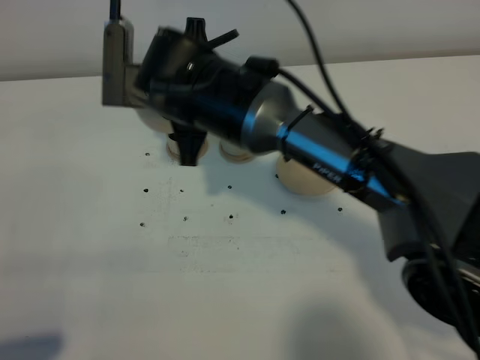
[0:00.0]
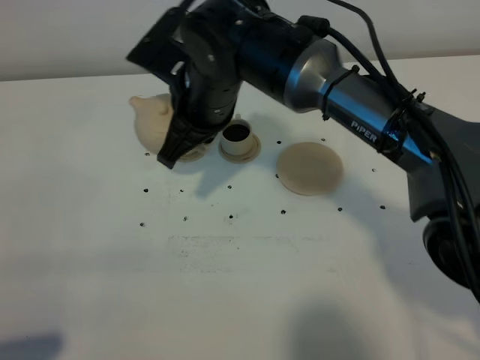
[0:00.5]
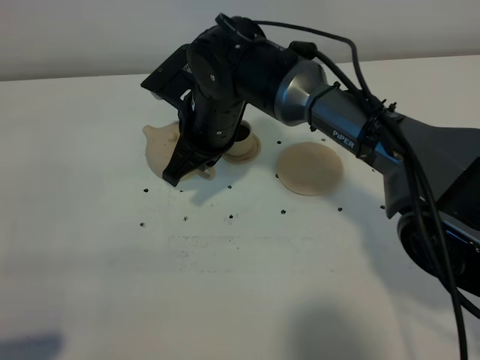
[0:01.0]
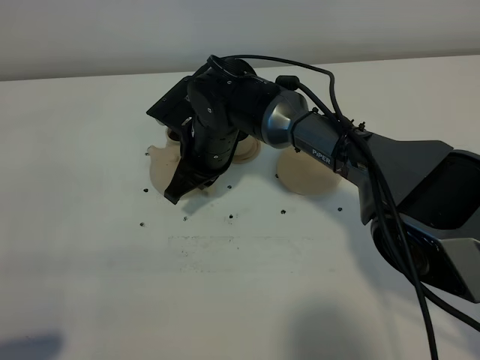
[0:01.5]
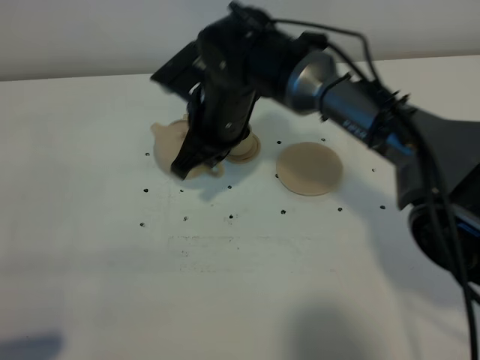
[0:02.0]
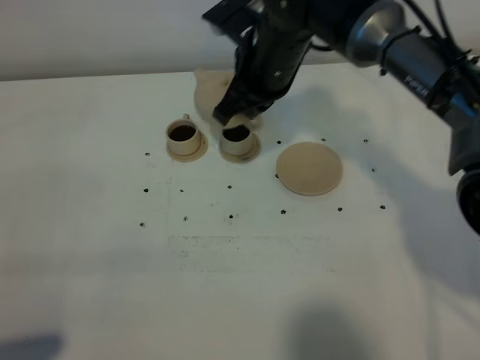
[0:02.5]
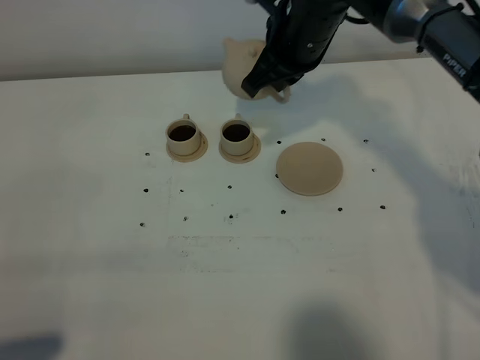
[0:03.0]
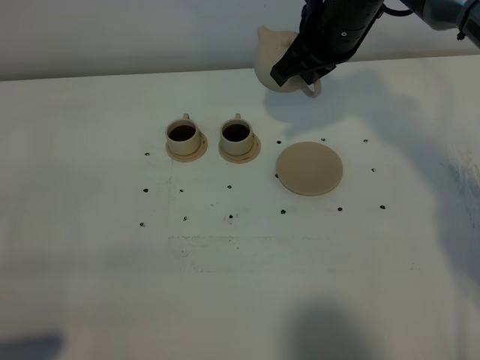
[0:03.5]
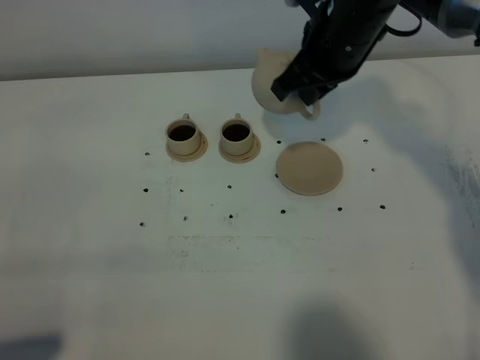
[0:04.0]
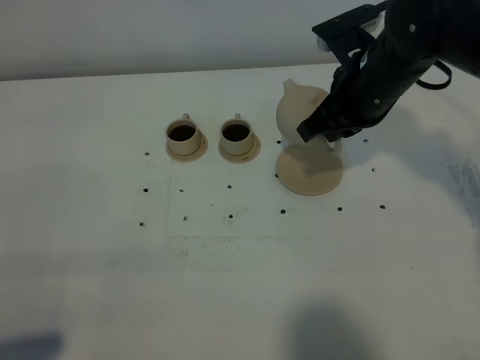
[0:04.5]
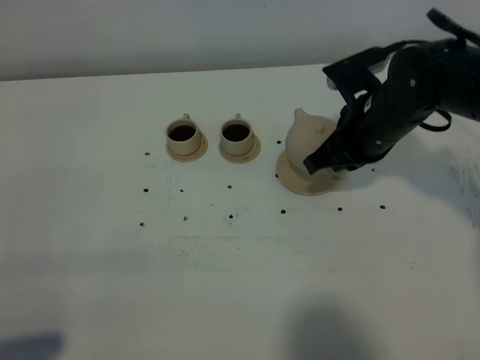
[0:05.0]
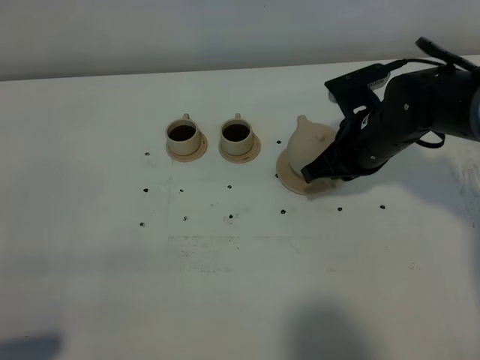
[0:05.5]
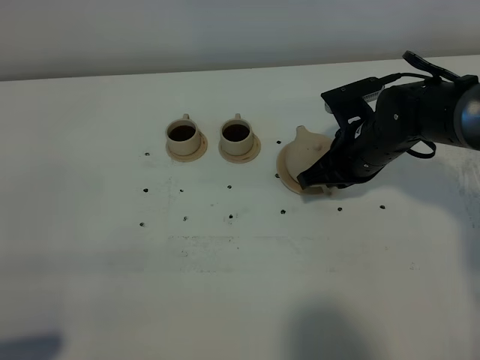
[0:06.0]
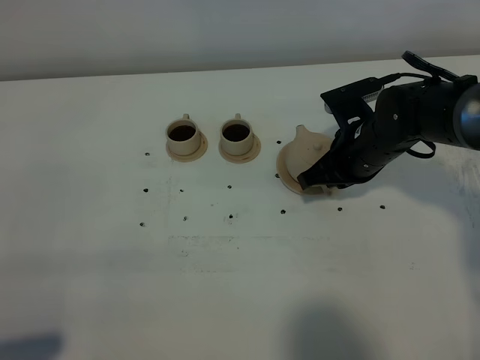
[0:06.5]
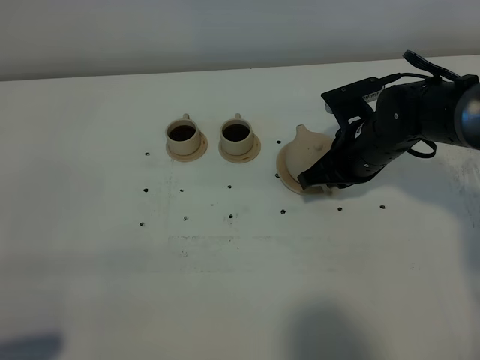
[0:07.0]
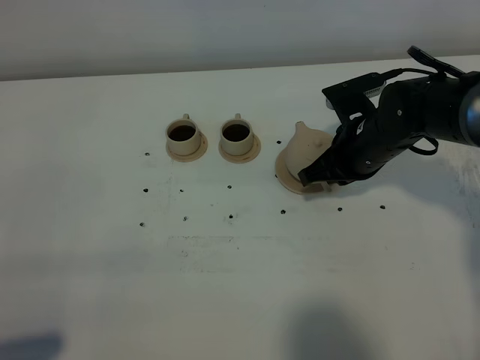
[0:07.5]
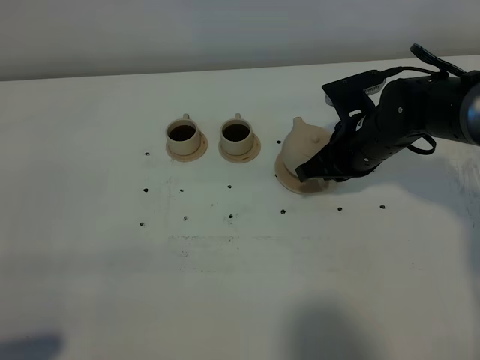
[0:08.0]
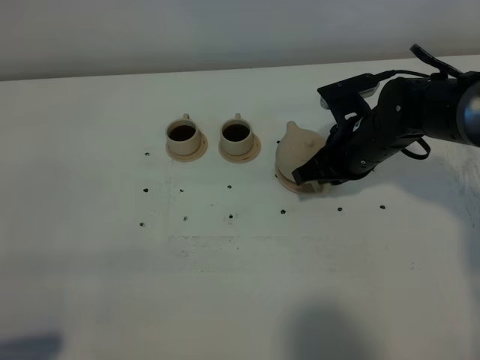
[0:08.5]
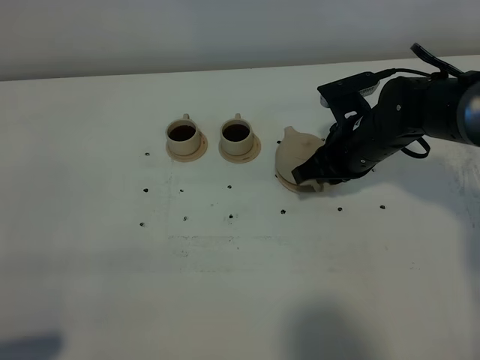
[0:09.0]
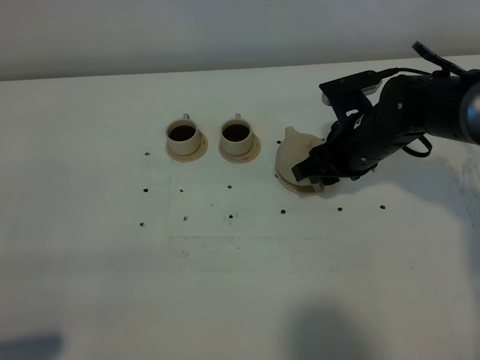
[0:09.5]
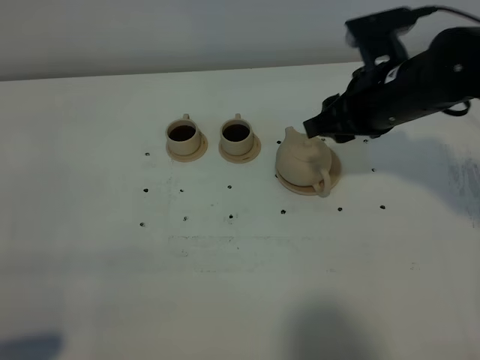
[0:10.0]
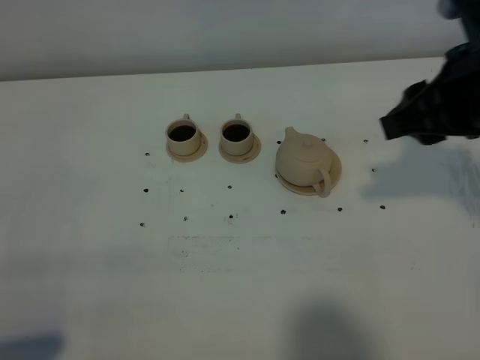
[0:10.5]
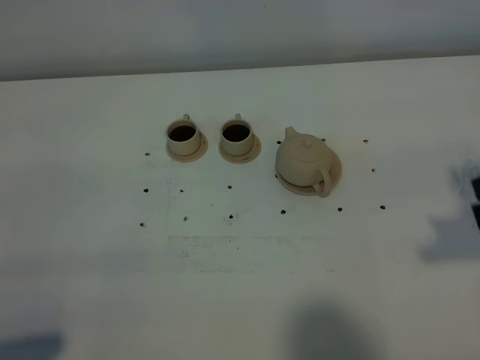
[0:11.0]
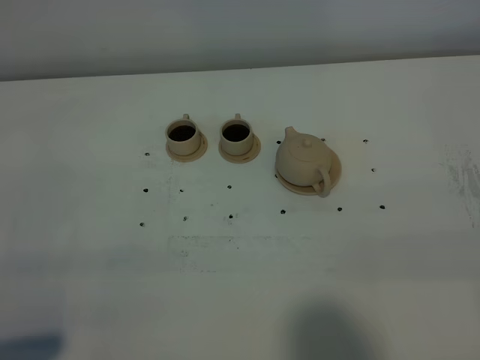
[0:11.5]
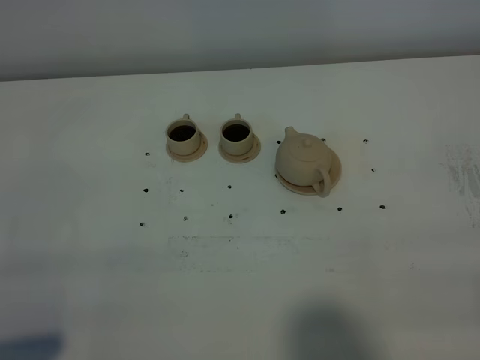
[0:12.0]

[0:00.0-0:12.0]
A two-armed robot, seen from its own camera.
Task of the whole recording: grasp the brown teapot and pour the tea into the two brown teacups one by one, put the brown teapot back in its original place.
0:02.0 to 0:04.0: The right gripper heads to the right and upward, covering some 15 cm.
0:04.0 to 0:06.0: The right gripper moves downward, roughly 15 cm.
0:06.0 to 0:08.0: The two grippers keep their place.
0:08.0 to 0:10.0: The right gripper shifts roughly 10 cm upward, and opens.
0:10.0 to 0:12.0: The right gripper travels backward and to the right by approximately 35 cm.

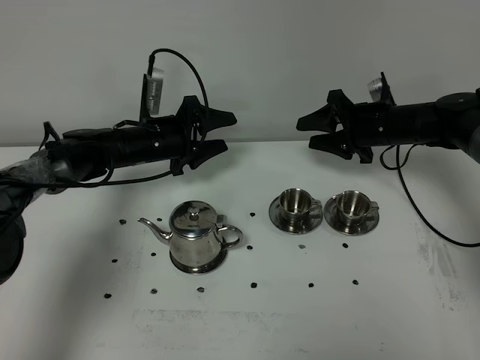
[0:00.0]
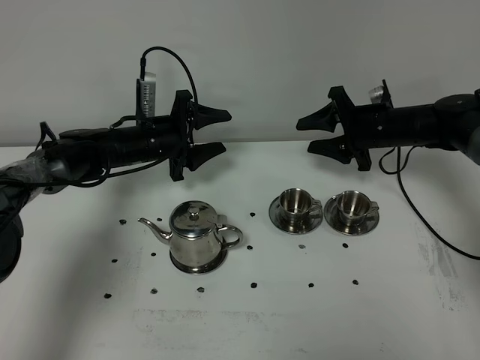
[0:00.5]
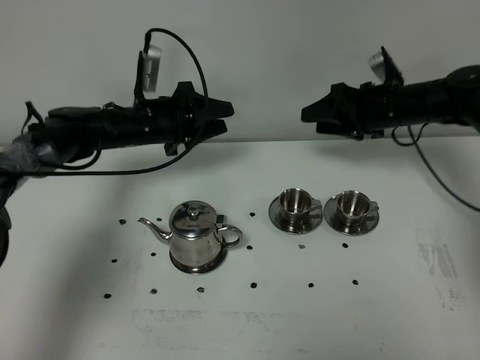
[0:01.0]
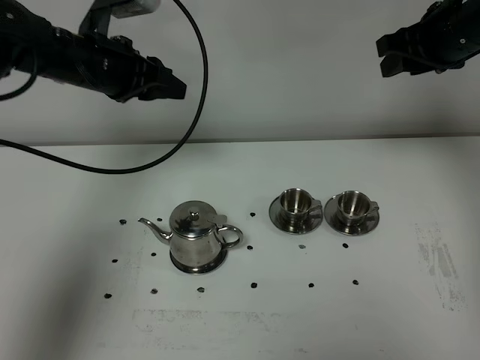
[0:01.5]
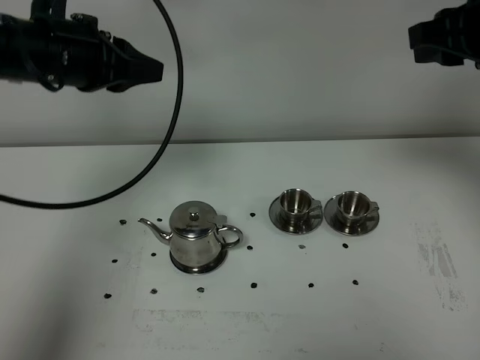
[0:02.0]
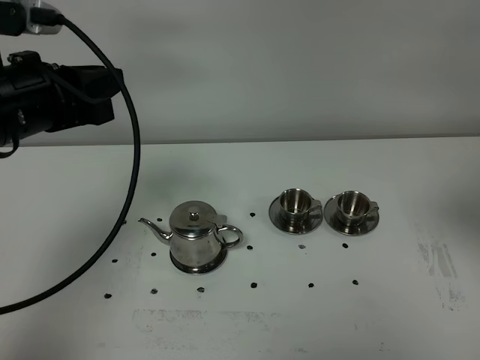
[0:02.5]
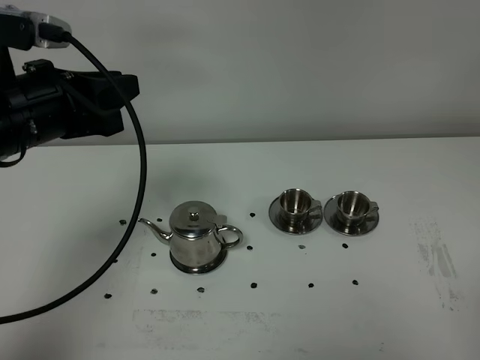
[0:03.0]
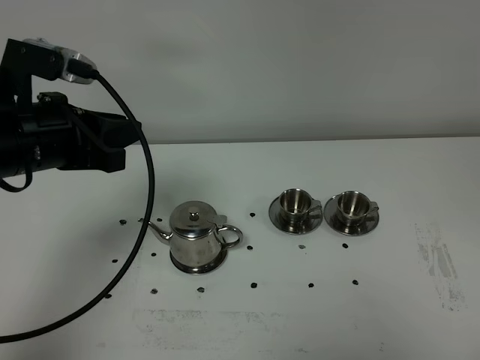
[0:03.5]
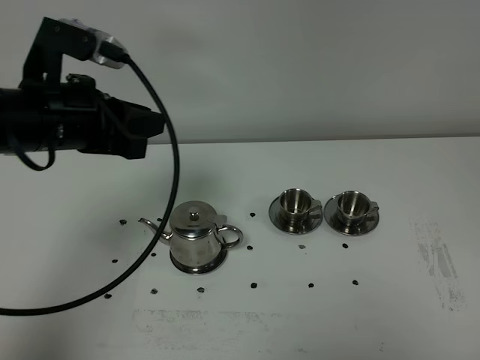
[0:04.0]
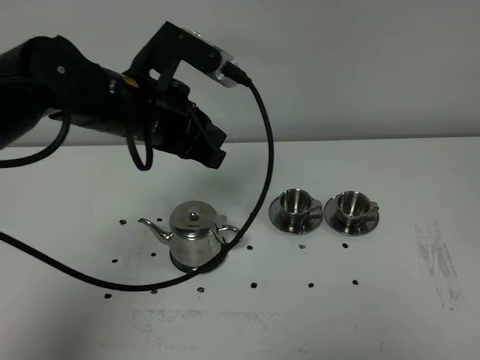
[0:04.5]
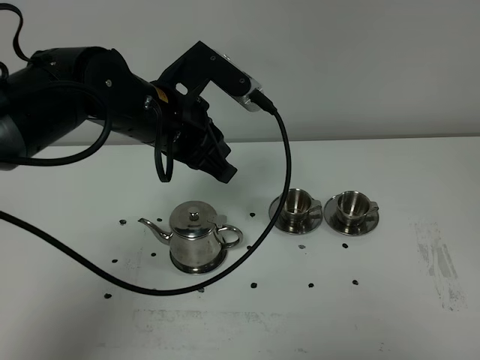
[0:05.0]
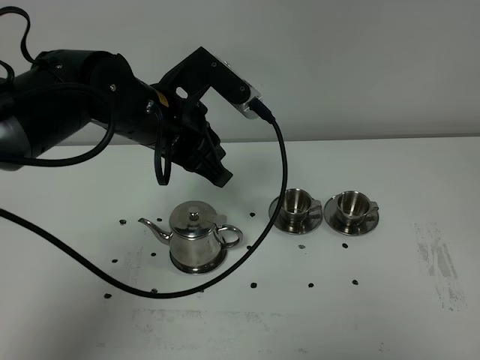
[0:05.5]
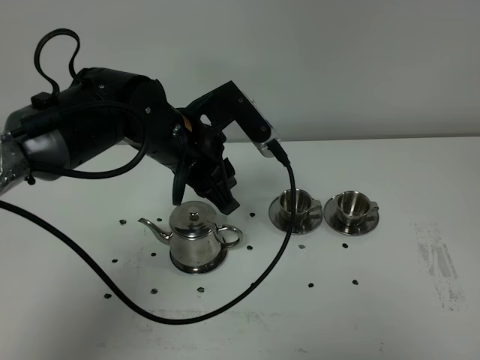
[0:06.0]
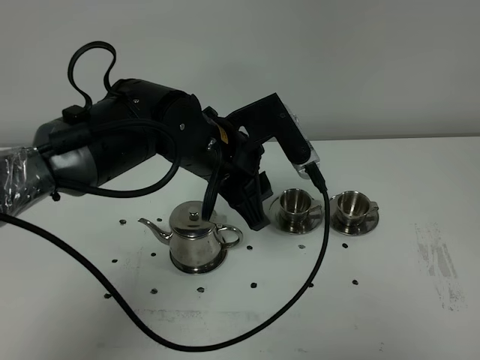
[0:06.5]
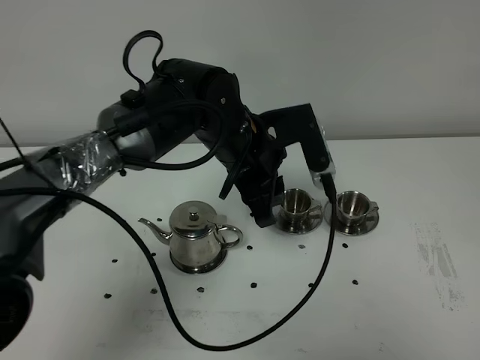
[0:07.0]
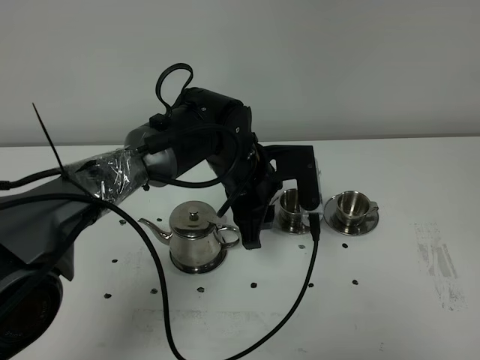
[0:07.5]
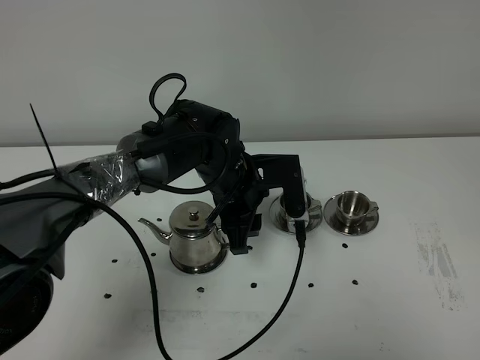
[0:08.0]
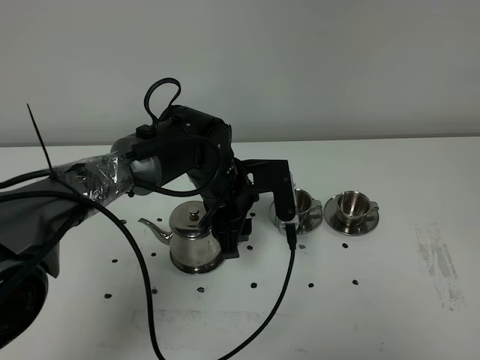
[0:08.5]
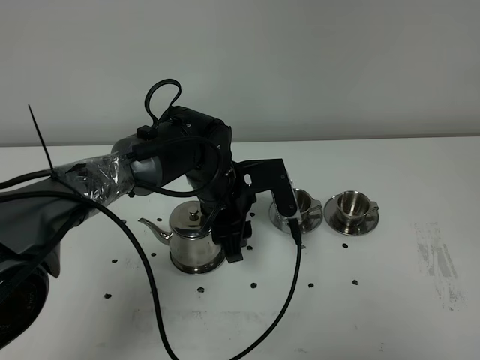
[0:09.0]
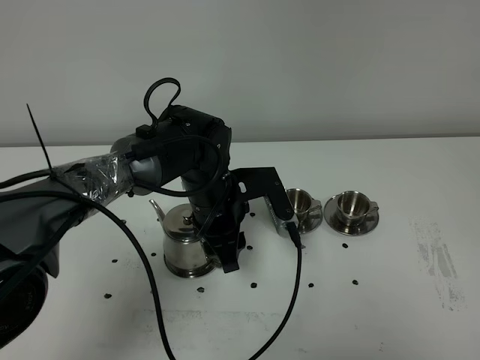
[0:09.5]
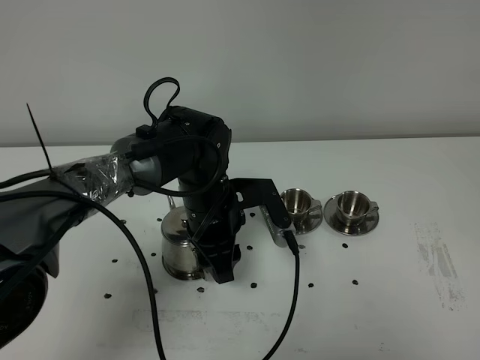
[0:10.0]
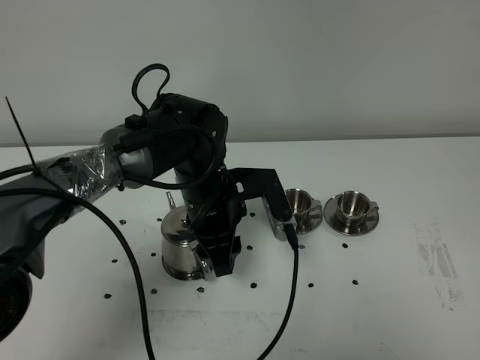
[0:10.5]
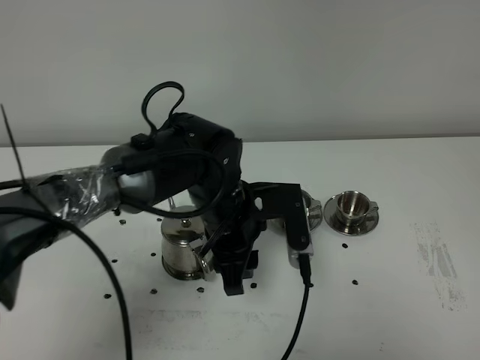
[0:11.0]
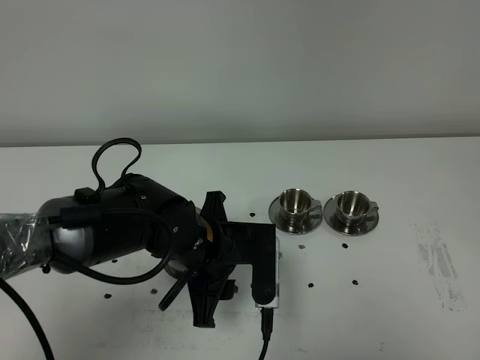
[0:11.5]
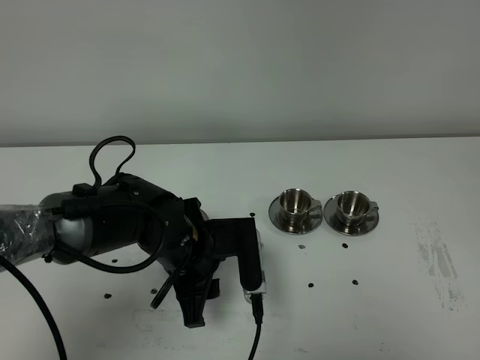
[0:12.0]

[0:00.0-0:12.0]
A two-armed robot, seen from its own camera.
Task of the whole recording: grasp the stainless steel teapot and pour the tea into the two stainless steel teacups one by one, put the stainless steel teapot back in its original place.
0:00.0 to 0:02.0: The two grippers go approximately 30 cm upward and backward. The left gripper closes its fingers. Meanwhile the right gripper closes its fingers.
0:02.0 to 0:04.0: The right gripper shifts some 35 cm backward; the left gripper travels backward by roughly 5 cm.
0:04.0 to 0:06.0: The left gripper heads to the right and downward, covering about 15 cm, and opens its fingers.
0:06.0 to 0:08.0: The left gripper moves downward and to the right, roughly 10 cm, and opens up.
0:10.0 to 0:12.0: The left gripper is displaced backward by roughly 5 cm.

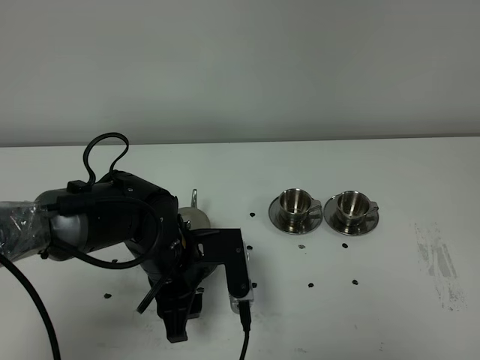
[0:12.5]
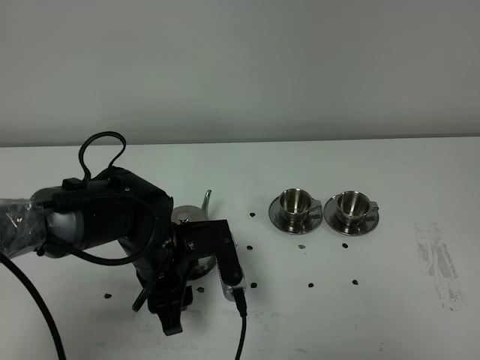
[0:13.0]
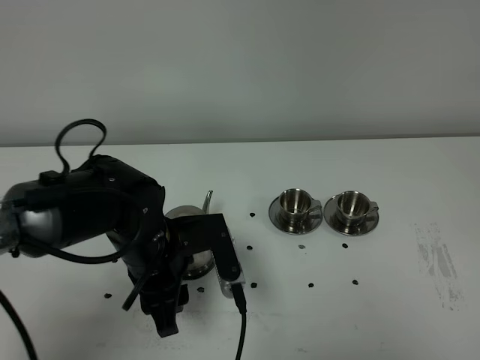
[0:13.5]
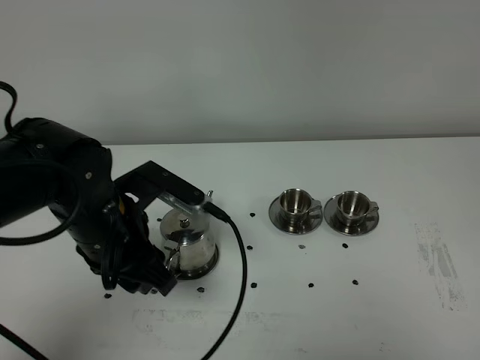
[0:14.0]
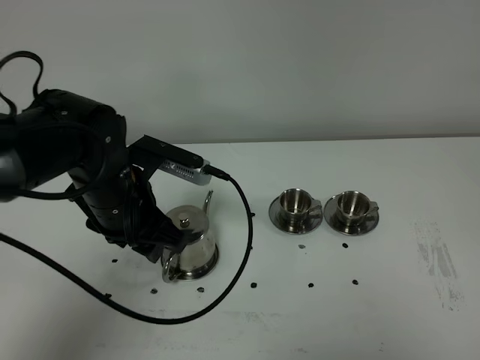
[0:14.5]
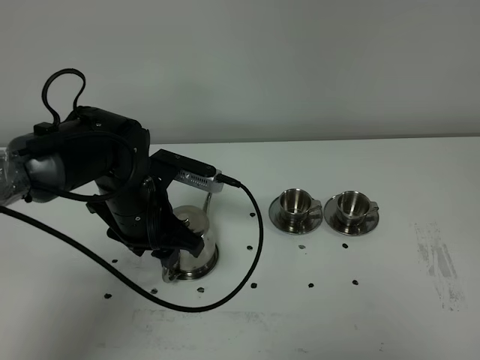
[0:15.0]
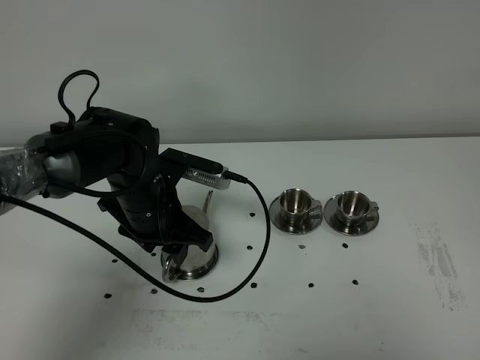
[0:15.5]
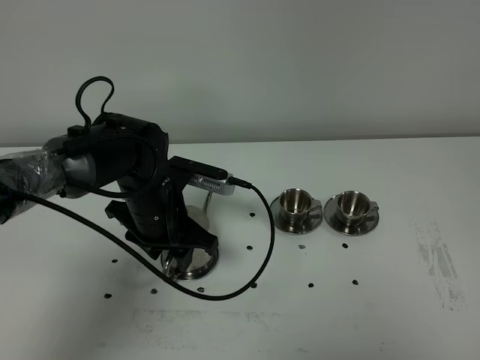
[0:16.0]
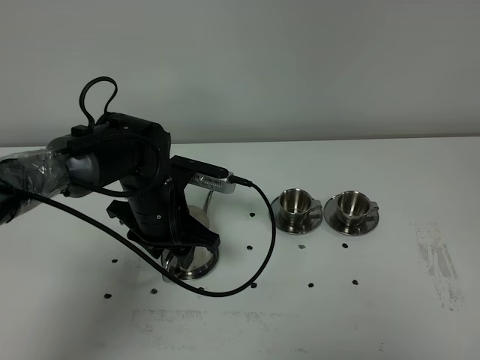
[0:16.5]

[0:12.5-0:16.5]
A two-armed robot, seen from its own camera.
Task of the whole recording: grasp the stainless steel teapot and pour the tea into the two stainless steel teacups one by one, put the stainless steel teapot back in its original place.
0:12.5 to 0:14.5: The left gripper travels upward by some 5 cm.
0:14.5 to 0:16.5: The left gripper moves downward, roughly 5 cm.
